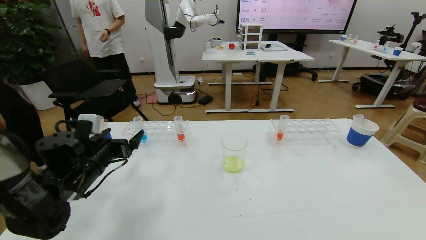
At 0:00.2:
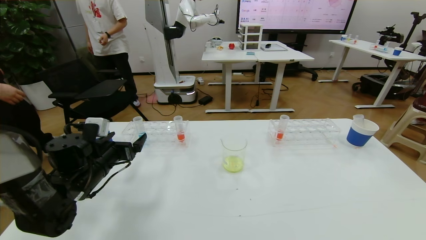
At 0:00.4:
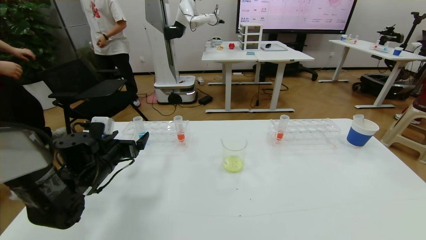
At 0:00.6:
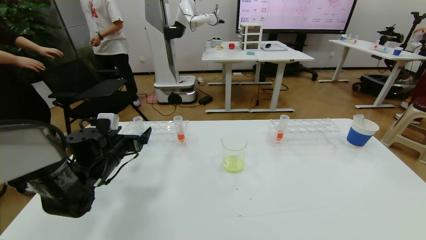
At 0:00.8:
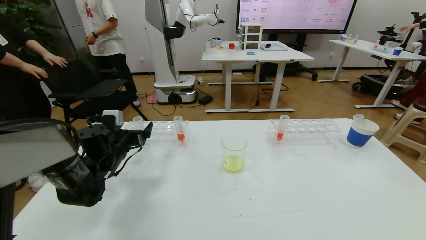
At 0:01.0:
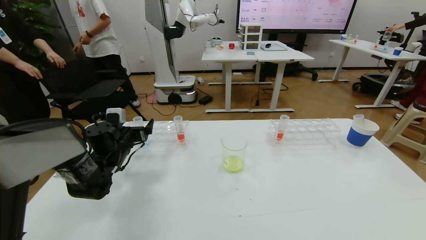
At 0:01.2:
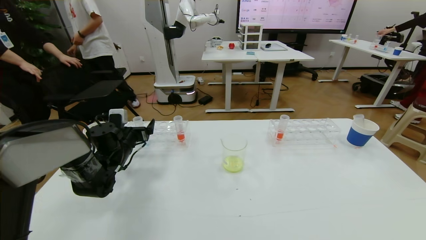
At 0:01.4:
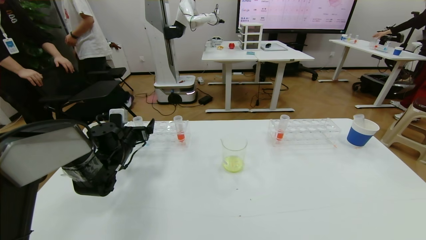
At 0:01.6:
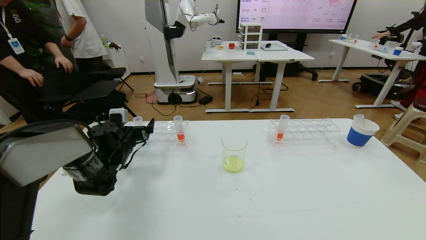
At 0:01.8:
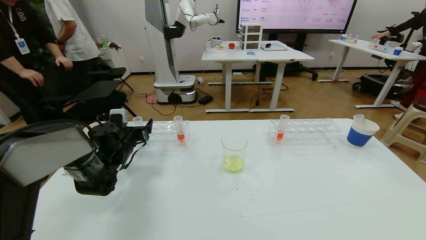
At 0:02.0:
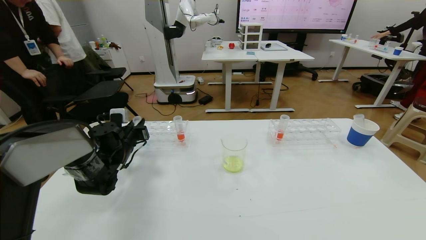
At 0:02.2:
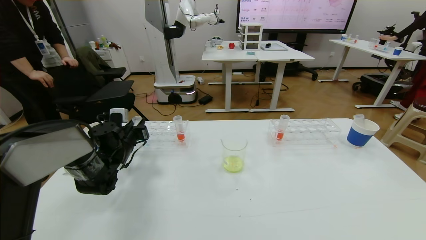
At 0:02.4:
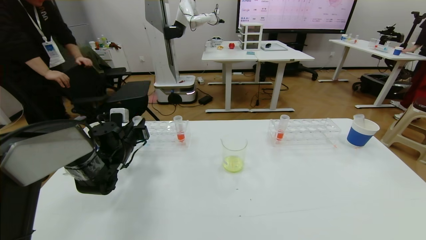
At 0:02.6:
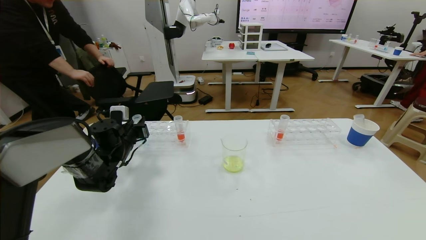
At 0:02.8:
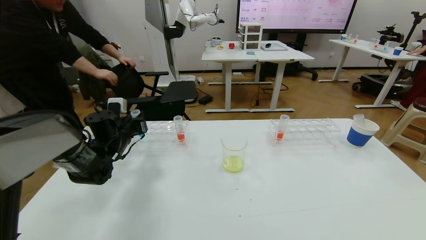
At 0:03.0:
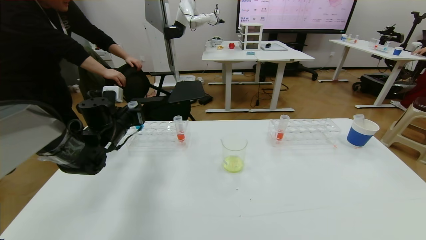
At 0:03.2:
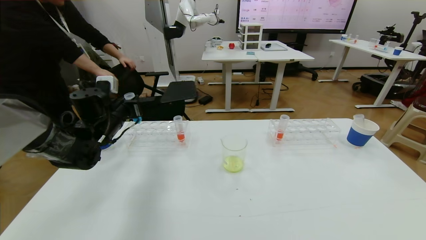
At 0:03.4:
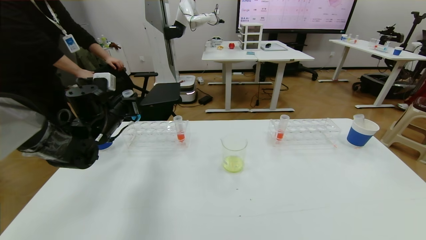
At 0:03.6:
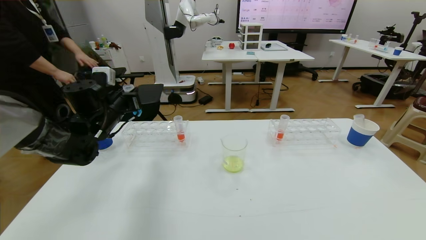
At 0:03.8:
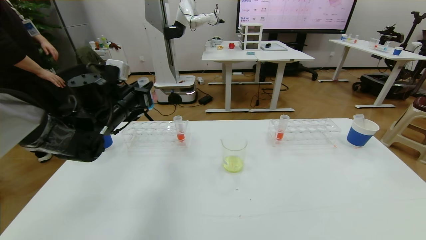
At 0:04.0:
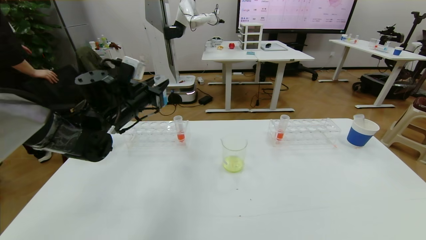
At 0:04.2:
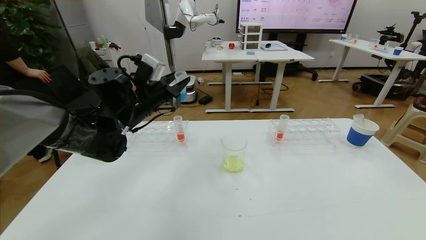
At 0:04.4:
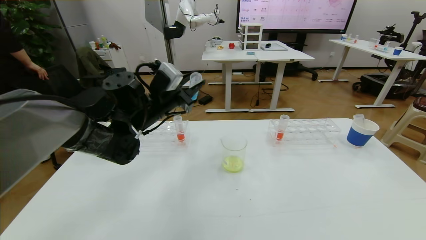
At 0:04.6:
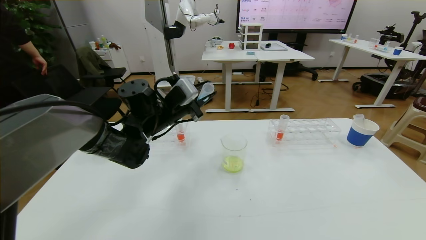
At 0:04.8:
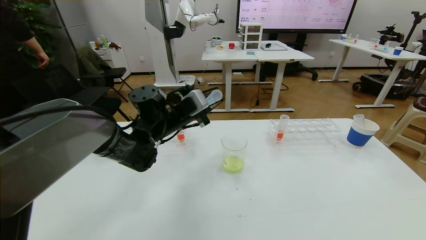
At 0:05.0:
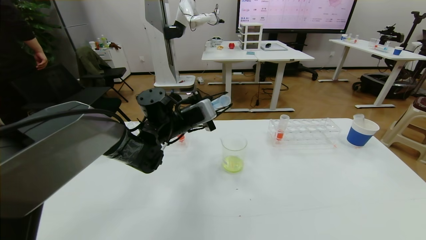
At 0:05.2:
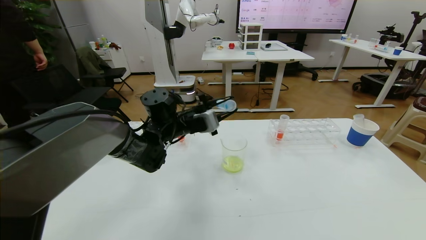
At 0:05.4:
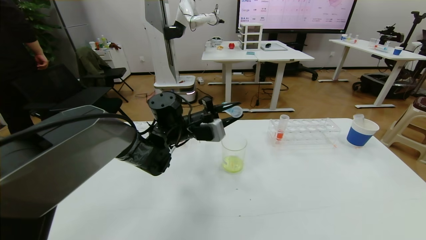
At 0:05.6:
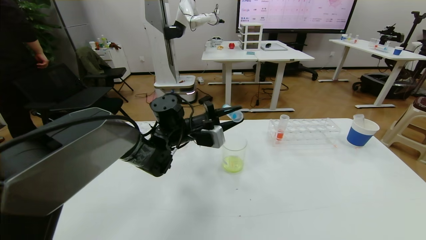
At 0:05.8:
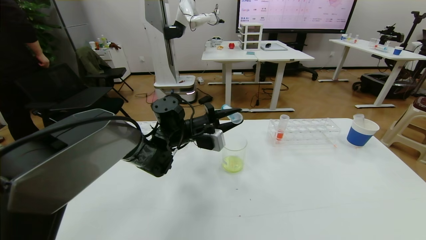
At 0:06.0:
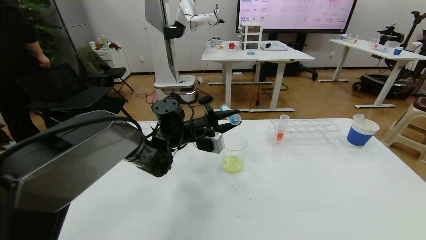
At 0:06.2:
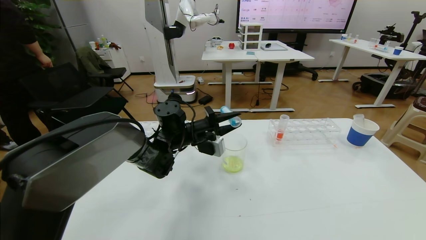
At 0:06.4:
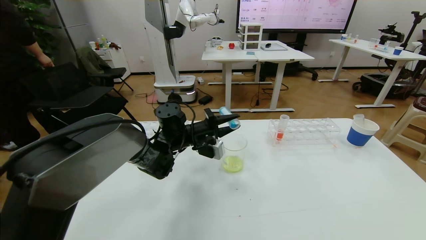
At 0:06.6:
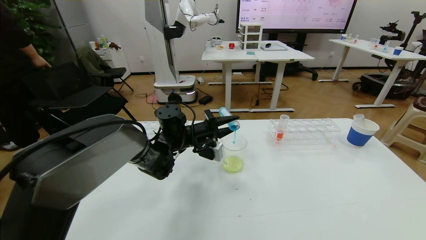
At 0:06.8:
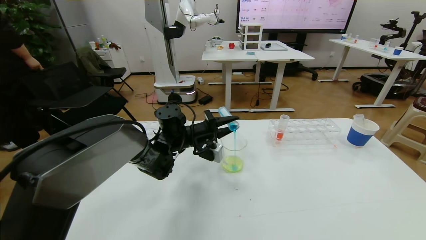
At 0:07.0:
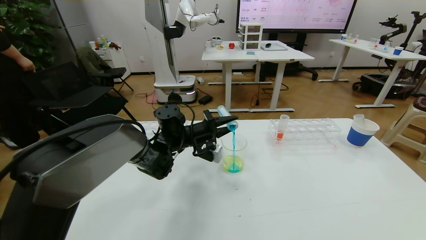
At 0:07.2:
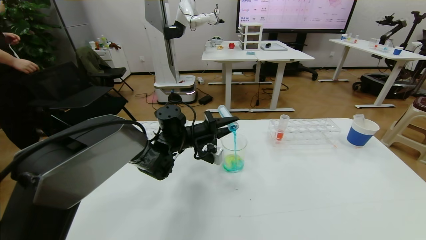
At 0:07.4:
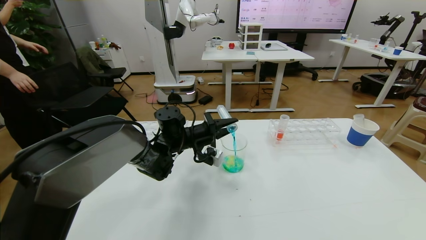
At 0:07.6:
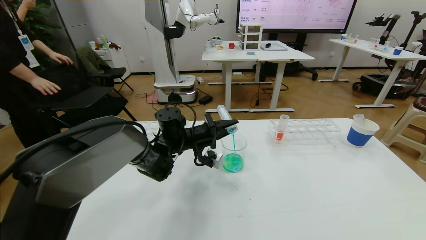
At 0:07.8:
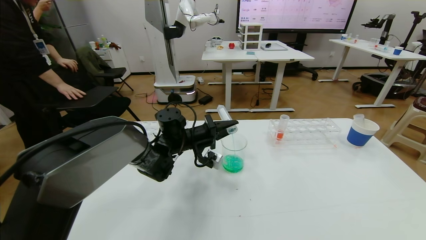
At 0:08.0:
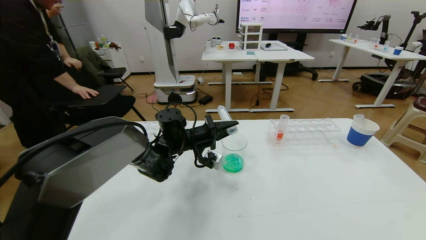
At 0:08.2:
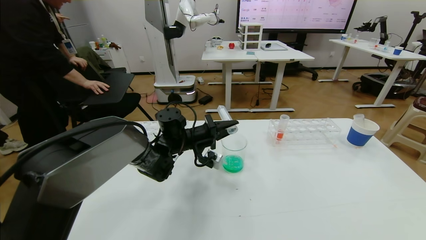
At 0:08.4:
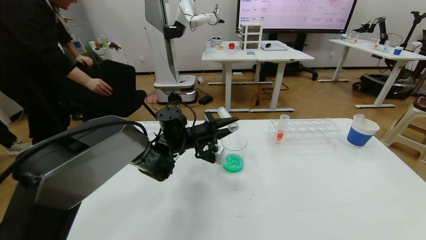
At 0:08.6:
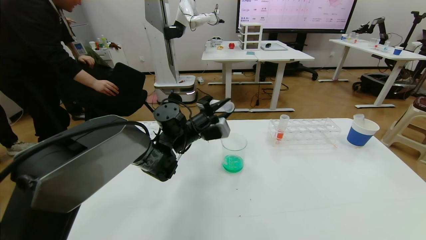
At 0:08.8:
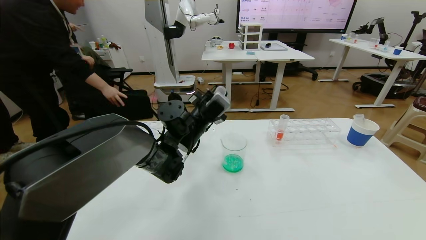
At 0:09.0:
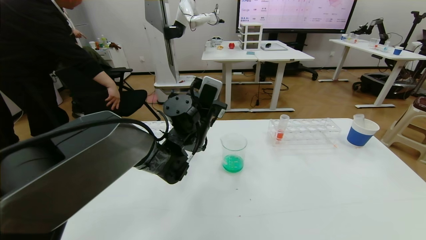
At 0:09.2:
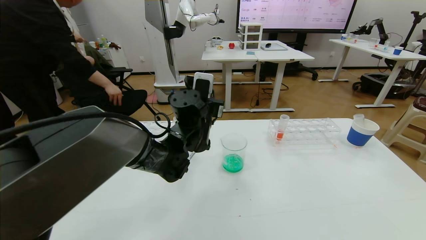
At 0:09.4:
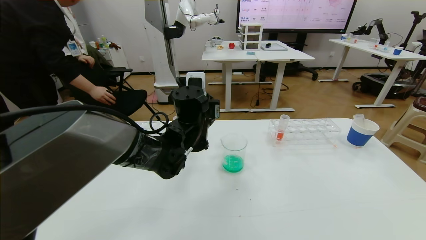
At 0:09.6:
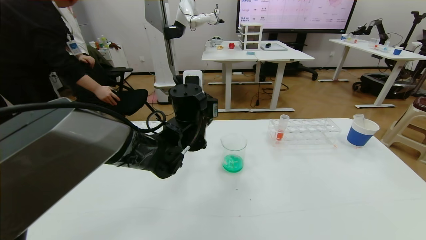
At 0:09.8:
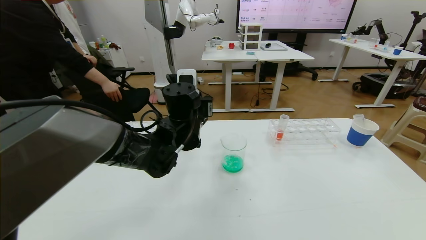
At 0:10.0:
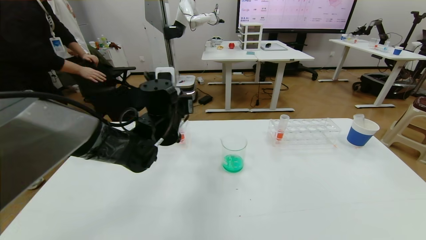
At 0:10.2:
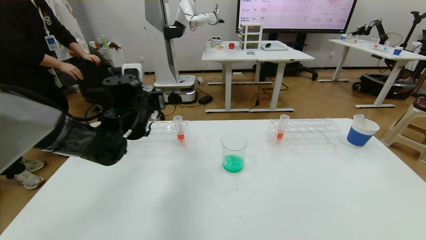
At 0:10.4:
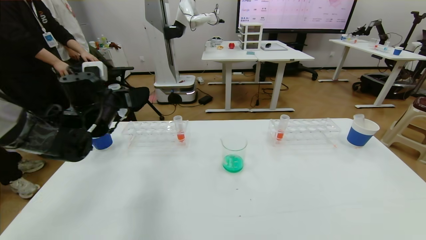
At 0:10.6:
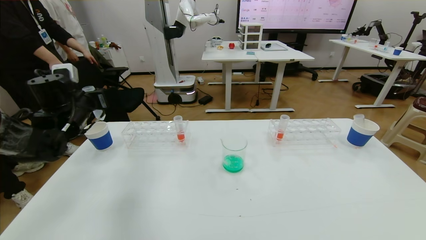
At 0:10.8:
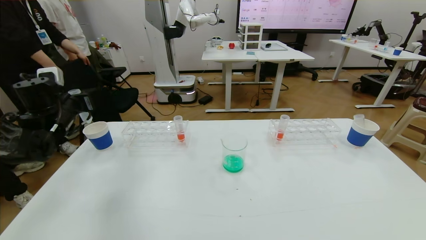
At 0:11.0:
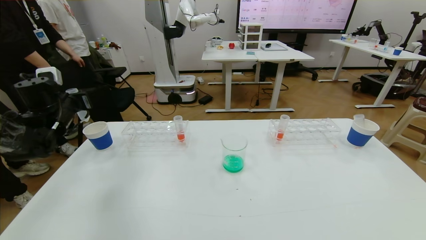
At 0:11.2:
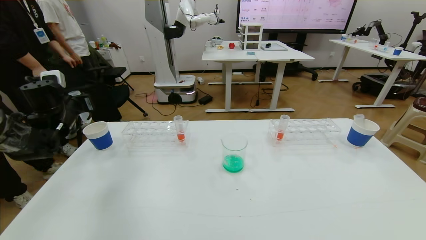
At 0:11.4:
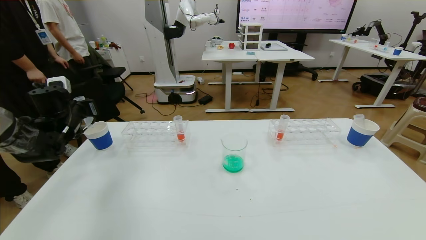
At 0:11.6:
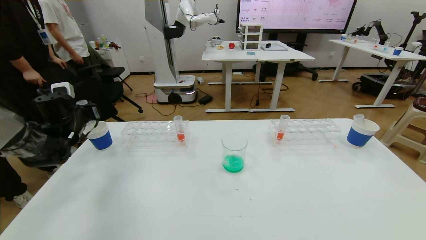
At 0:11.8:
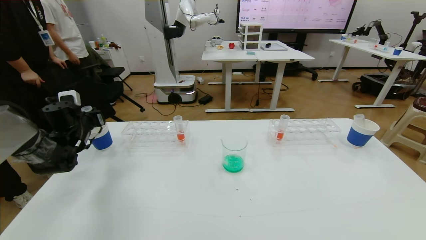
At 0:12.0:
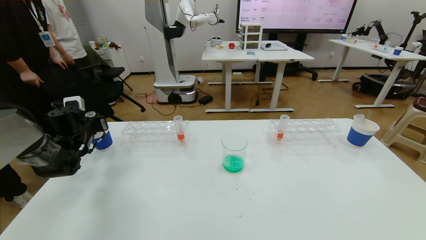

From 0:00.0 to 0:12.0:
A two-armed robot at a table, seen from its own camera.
Task of the whole recording: pick up the test tube with yellow pigment and the test tube with blue pigment by grippers and pour them into the beaker.
From 0:00.0 to 0:01.6: The left gripper moves forward, some 10 cm.
From 0:01.6 to 0:03.0: The left gripper is displaced upward by approximately 5 cm, and closes.
From 0:03.0 to 0:04.4: The left gripper heads to the right and upward, covering about 15 cm.
From 0:04.4 to 0:06.0: The left gripper shifts about 10 cm downward and to the right.
From 0:07.6 to 0:09.0: The left gripper moves upward, some 5 cm.
From 0:09.0 to 0:10.4: The left gripper heads to the left, covering about 20 cm.
From 0:10.4 to 0:12.0: The left gripper shifts approximately 15 cm to the left and downward.

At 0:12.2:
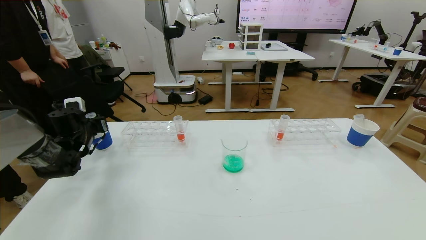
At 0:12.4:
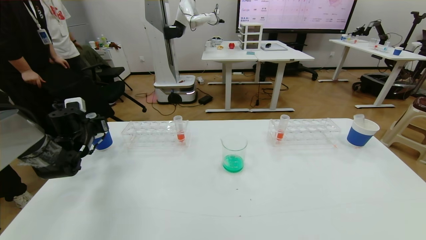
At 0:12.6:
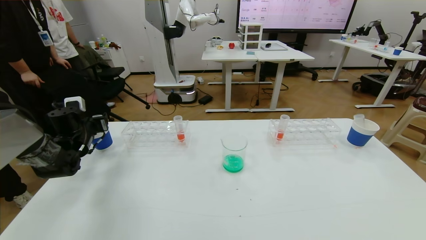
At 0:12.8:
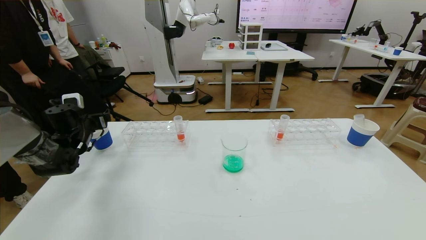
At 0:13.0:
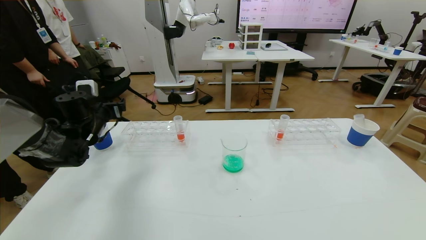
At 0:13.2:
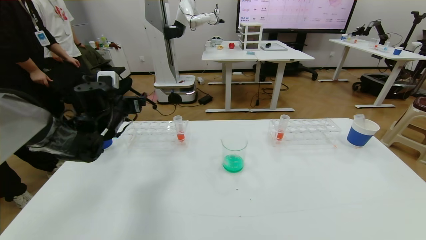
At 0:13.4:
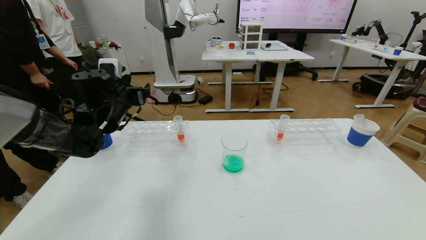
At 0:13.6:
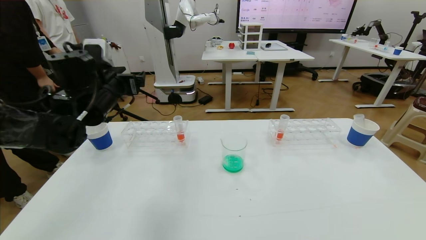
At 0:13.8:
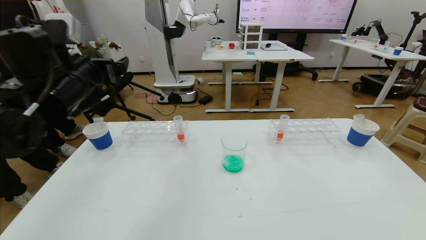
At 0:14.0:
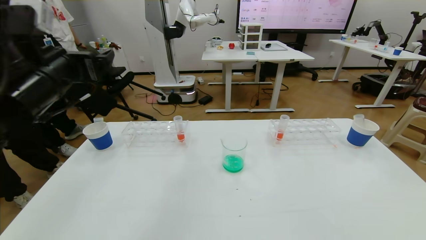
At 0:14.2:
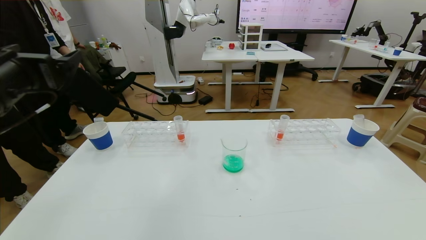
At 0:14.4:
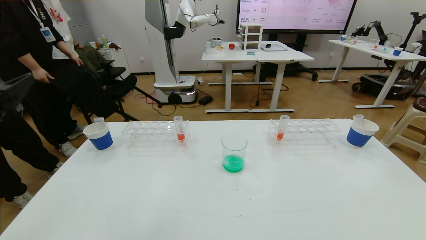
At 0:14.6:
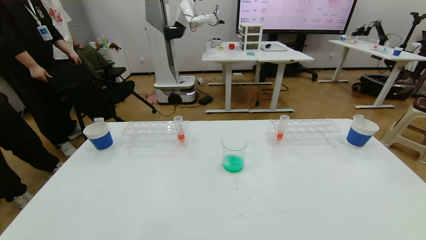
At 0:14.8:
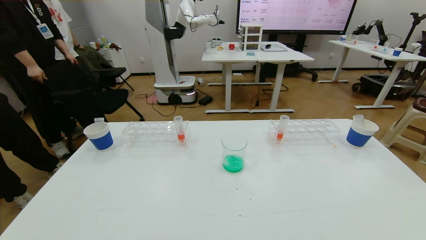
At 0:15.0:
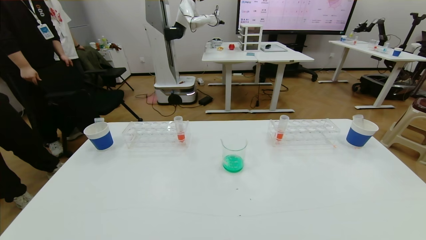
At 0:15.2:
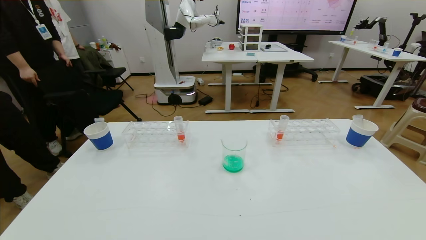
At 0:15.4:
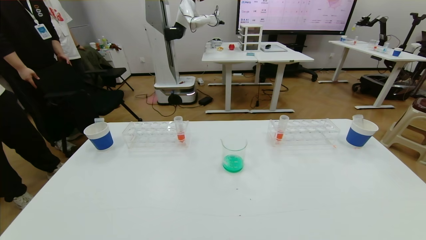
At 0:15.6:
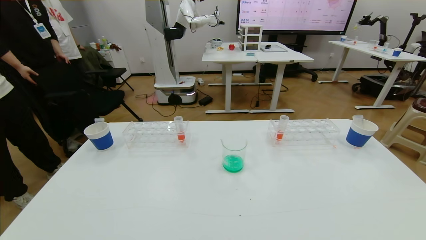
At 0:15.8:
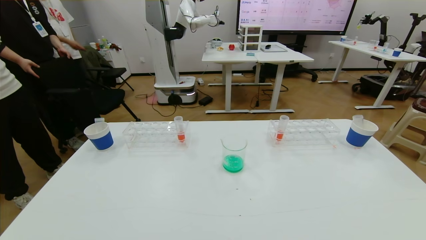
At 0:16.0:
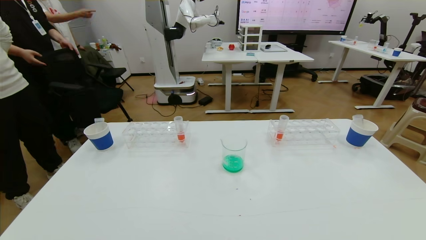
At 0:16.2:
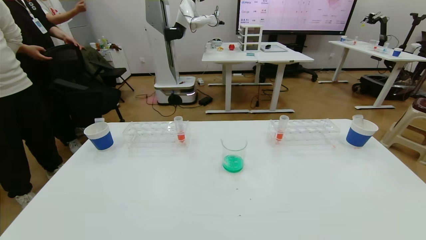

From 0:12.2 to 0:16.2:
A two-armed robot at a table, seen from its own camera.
Task of the whole recording: pick up the test tube with yellow pigment and the test tube with blue pigment by grippers and pour them into the beaker.
Step, from 0:12.2 to 0:16.2: Pour the blue reagent into the graduated cylinder and place the test tube into the paper cup.
From 0:12.2 to 0:13.6: The left gripper heads upward and to the right, covering roughly 20 cm, and opens up.
From 0:13.6 to 0:14.8: The left gripper heads backward, covering some 35 cm.
From 0:14.8 to 0:16.2: The left gripper heads downward, covering approximately 20 cm.
